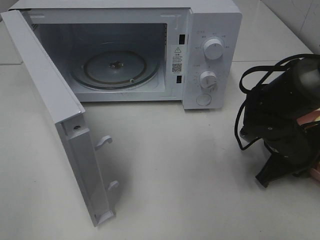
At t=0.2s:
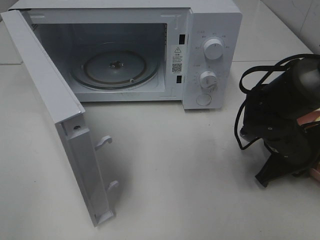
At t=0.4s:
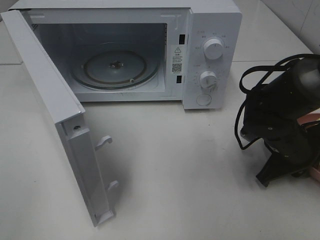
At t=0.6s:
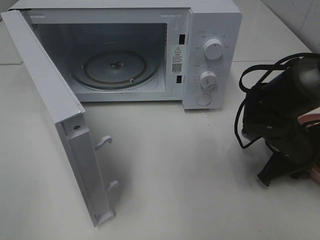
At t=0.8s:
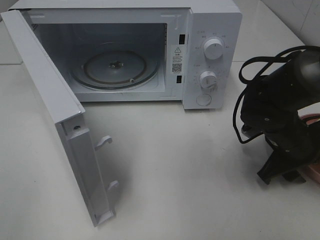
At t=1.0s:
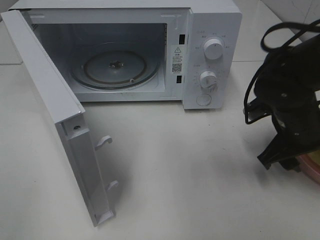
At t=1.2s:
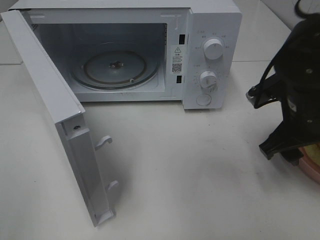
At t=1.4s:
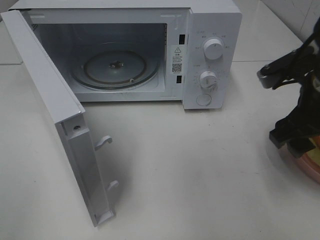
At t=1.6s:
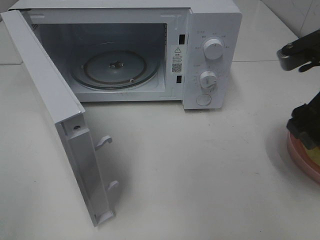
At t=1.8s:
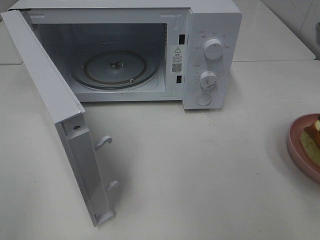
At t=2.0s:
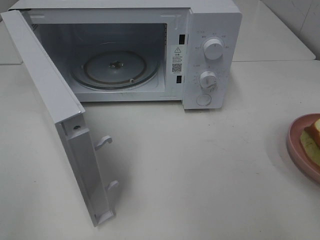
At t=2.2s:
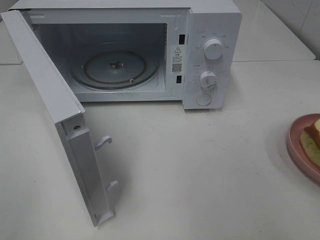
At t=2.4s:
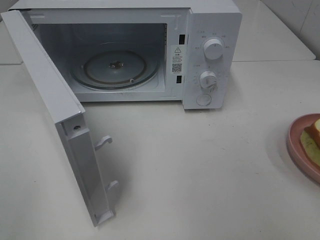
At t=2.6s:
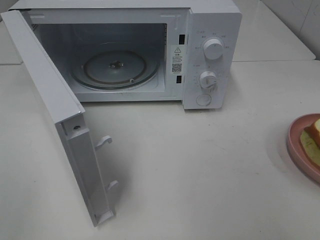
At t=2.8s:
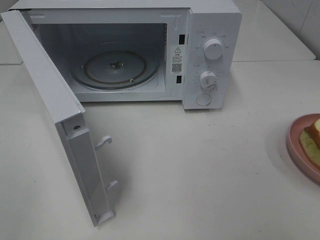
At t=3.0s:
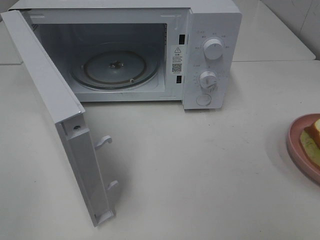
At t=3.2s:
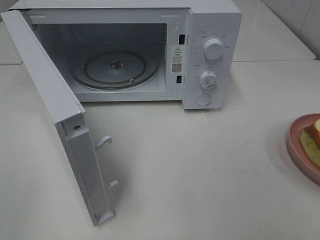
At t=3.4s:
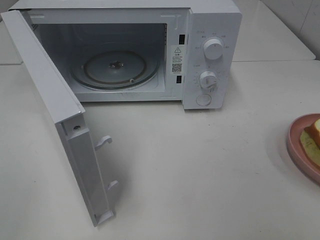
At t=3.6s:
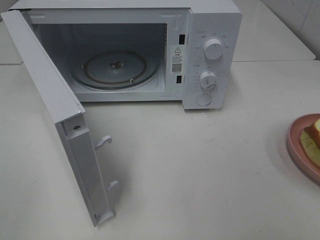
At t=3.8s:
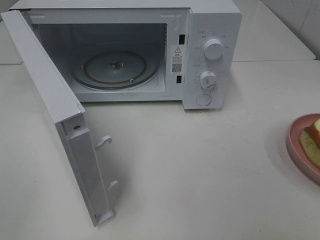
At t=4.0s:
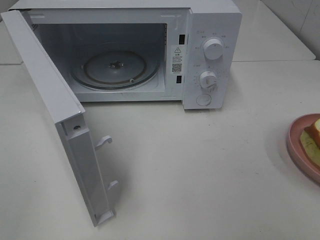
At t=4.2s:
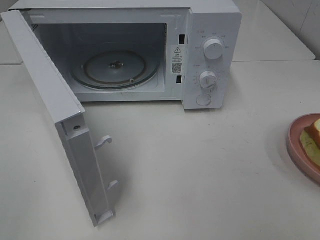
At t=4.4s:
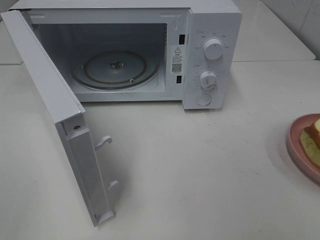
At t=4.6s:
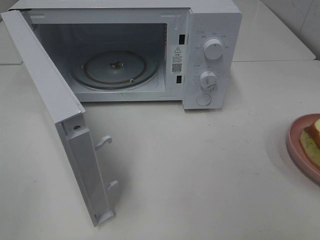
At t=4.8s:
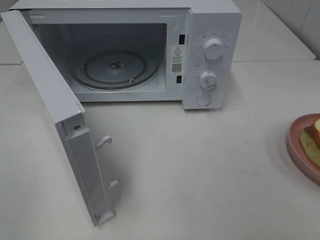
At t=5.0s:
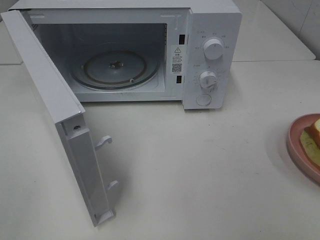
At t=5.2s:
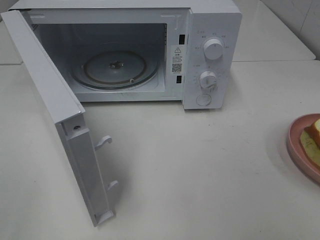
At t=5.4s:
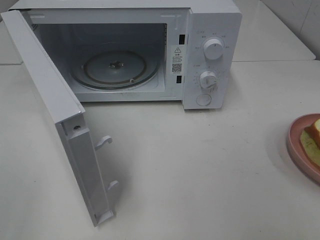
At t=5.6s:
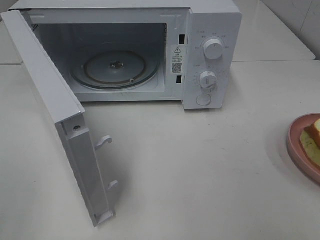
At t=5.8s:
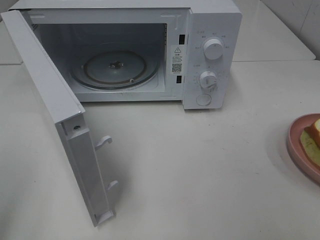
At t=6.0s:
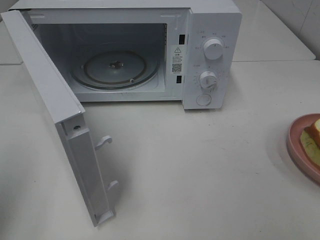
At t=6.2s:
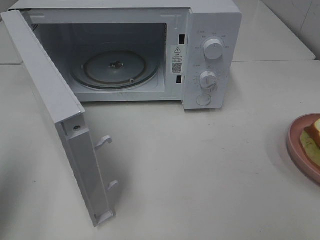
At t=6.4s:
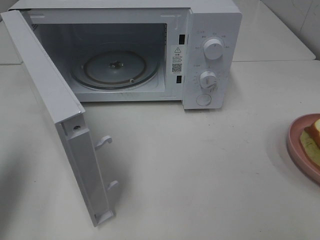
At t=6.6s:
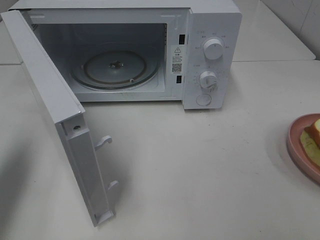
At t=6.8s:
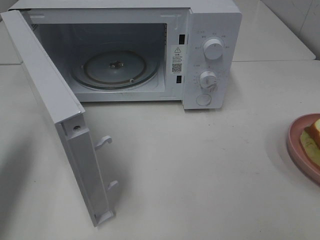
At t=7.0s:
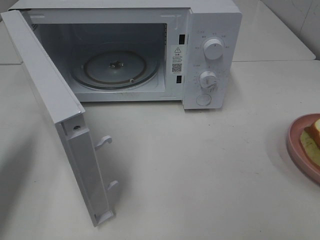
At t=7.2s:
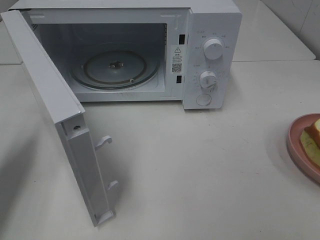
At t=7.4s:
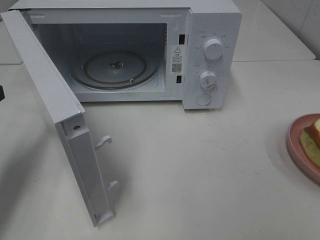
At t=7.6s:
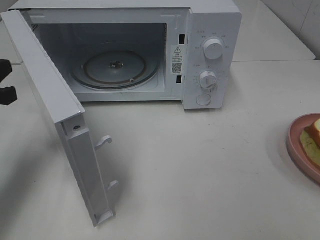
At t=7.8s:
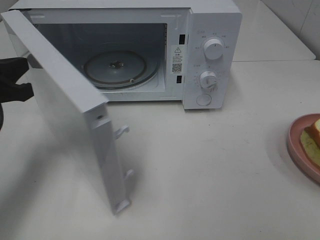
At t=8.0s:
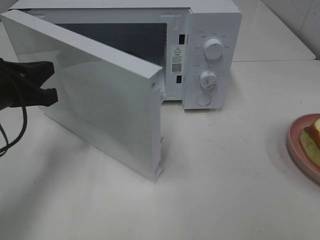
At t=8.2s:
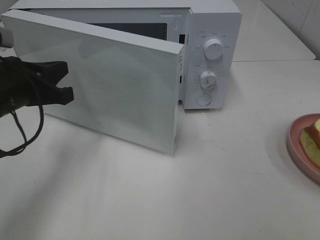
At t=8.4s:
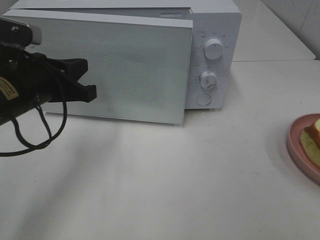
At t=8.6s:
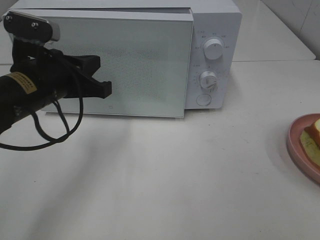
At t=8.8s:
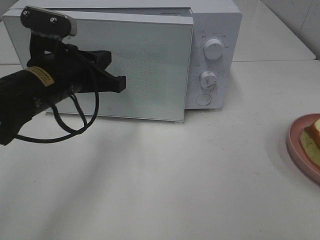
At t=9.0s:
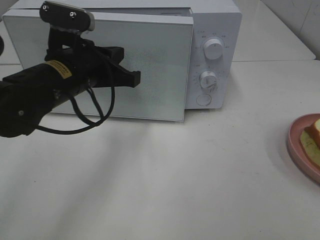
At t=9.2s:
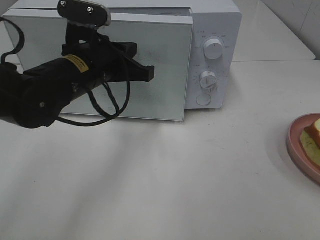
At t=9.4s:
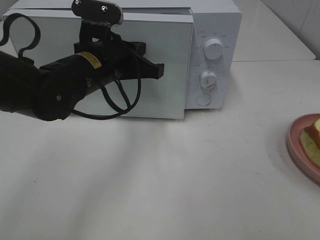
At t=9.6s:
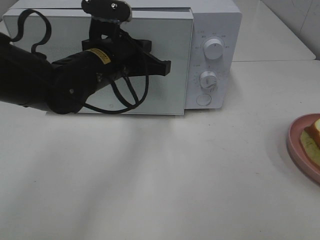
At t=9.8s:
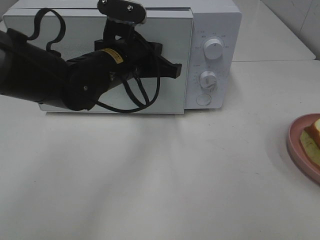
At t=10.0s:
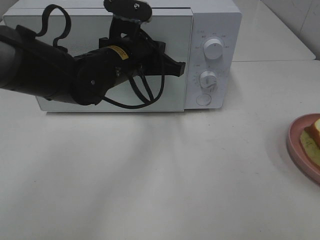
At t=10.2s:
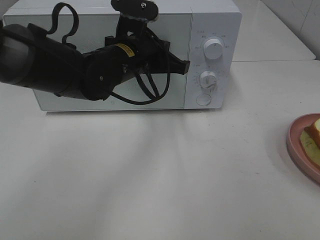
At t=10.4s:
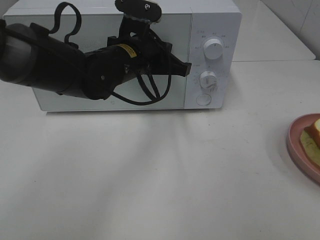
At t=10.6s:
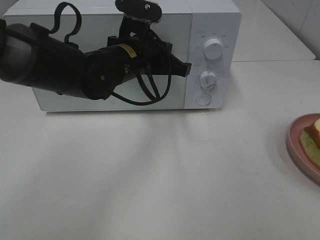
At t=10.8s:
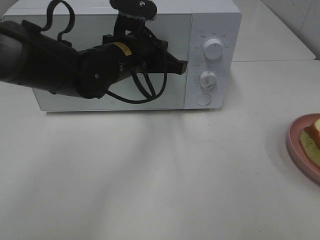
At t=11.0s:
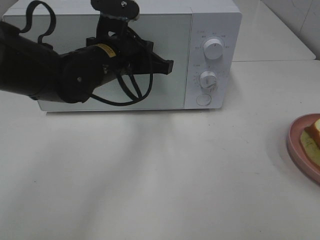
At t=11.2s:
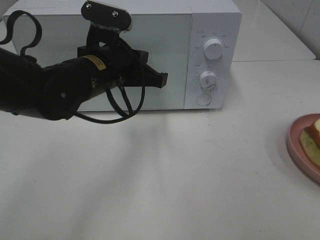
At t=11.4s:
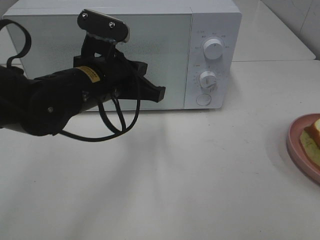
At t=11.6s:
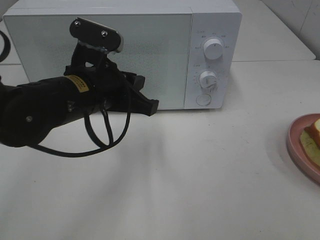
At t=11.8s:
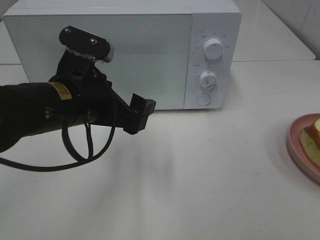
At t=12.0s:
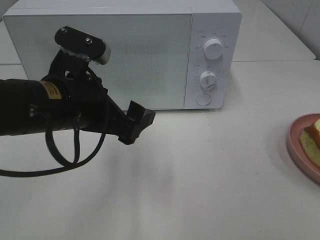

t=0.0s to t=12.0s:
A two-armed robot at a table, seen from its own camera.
Task of the whole recording: Heat Sandwich.
Step, t=1.4s to t=11.4s: Left hand: close the microwave door.
t=0.0s to t=1.6s: The right gripper is displaced upward by roughly 20 cm, and opens its fingers.
t=1.6s to t=3.0s: The right gripper goes roughly 20 cm backward.
t=6.0s to t=7.6s: The left gripper travels forward and downward by roughly 20 cm.
t=7.6s to t=9.0s: The left gripper goes about 15 cm to the right.
t=9.0s to t=10.4s: The left gripper heads to the right and forward, covering roughly 10 cm.
t=10.4s to t=12.0s: The left gripper shifts roughly 15 cm backward and to the left, and opens.

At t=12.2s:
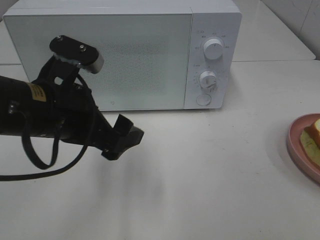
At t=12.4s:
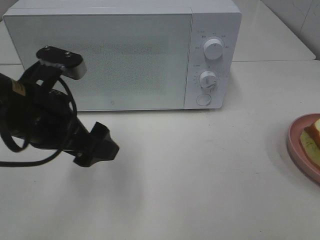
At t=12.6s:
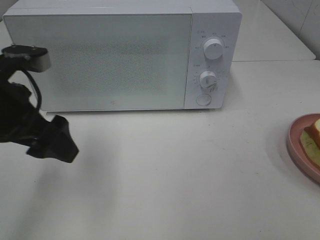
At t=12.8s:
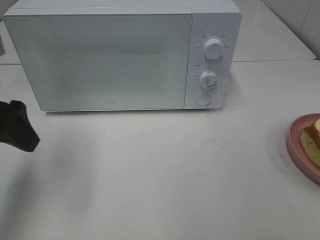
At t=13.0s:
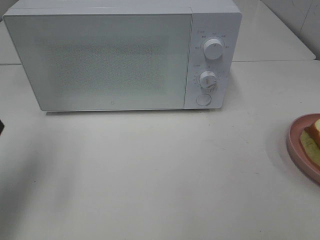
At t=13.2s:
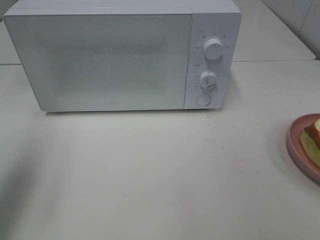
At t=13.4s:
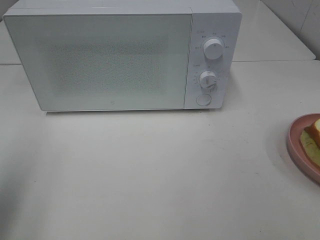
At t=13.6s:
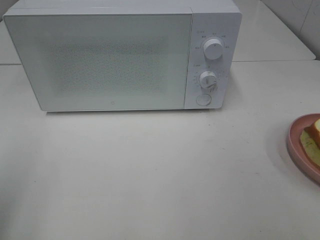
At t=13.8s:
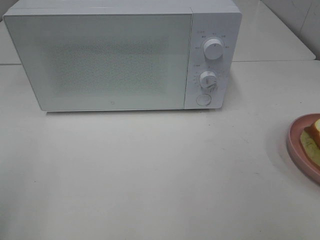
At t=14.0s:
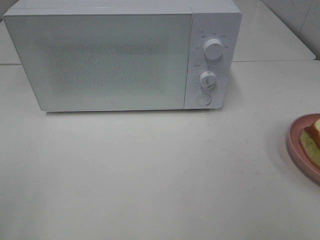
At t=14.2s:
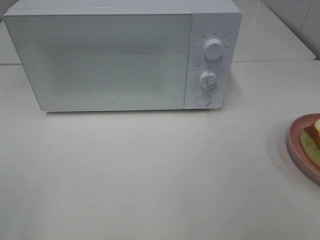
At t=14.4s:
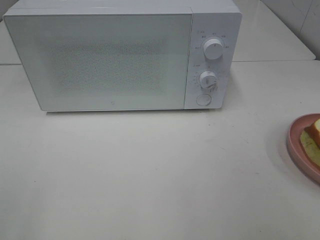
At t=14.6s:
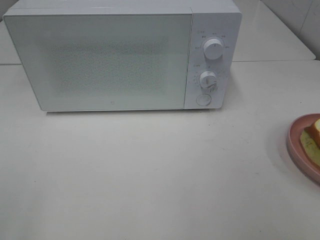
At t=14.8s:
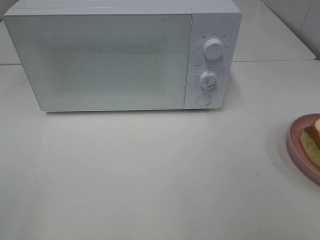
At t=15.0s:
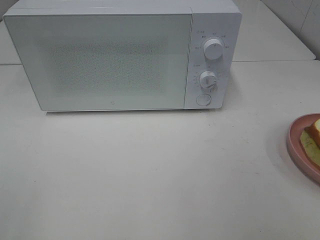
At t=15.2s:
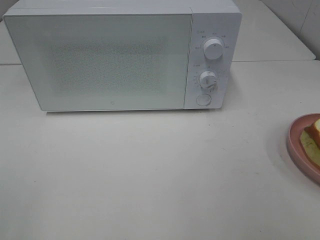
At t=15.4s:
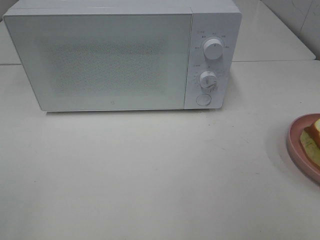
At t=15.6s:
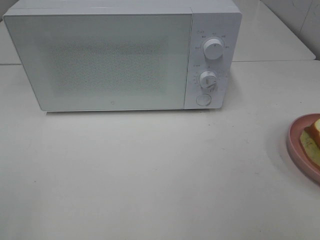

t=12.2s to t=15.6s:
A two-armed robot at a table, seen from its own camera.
Task of the whole recording: Heat Sandwich.
t=12.2s to t=13.8s: The left gripper heads to the left, backward and upward, covering some 25 cm.
